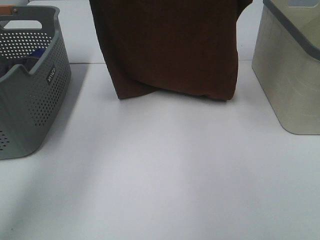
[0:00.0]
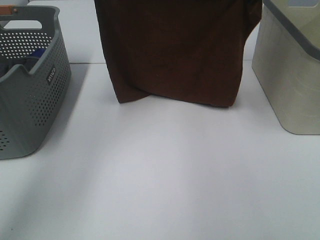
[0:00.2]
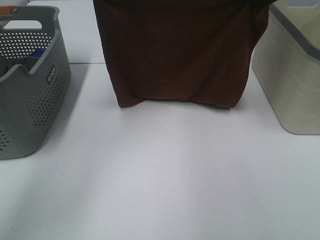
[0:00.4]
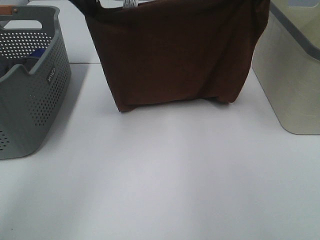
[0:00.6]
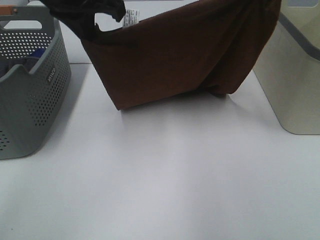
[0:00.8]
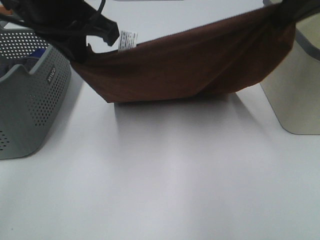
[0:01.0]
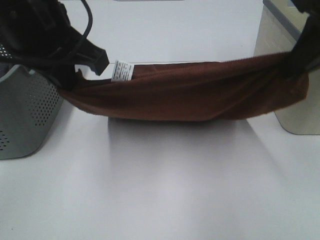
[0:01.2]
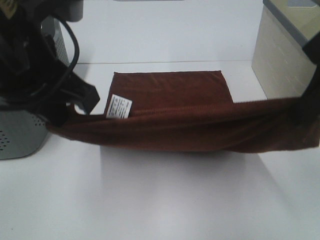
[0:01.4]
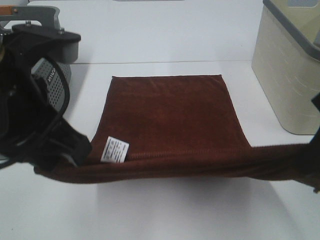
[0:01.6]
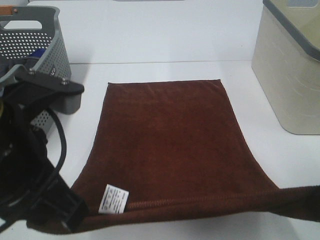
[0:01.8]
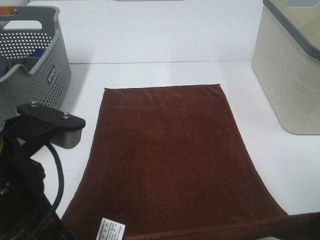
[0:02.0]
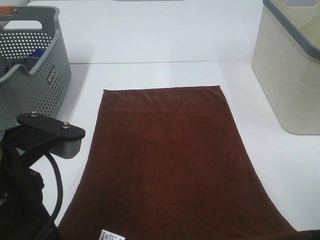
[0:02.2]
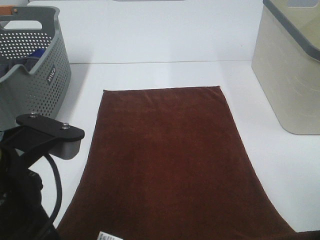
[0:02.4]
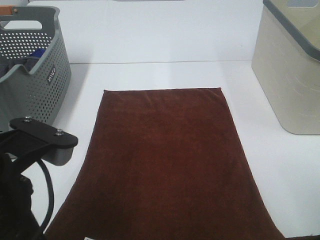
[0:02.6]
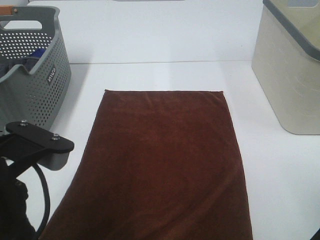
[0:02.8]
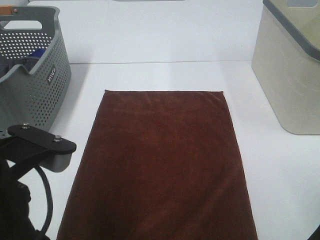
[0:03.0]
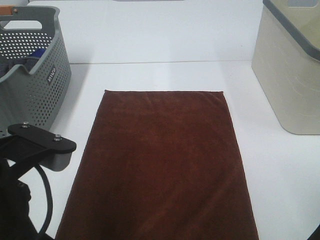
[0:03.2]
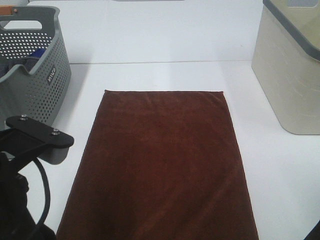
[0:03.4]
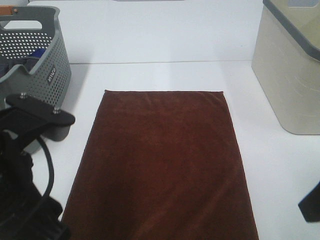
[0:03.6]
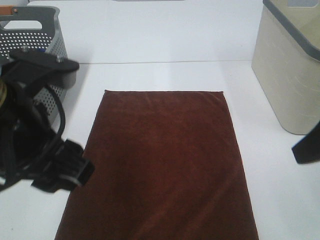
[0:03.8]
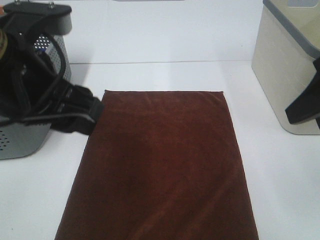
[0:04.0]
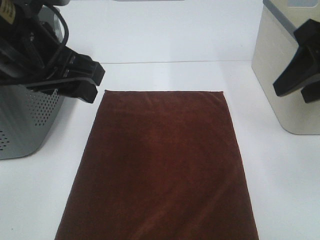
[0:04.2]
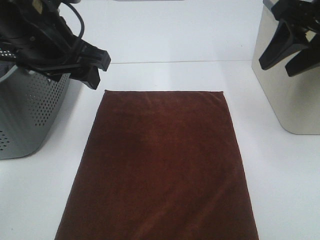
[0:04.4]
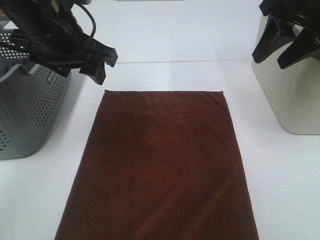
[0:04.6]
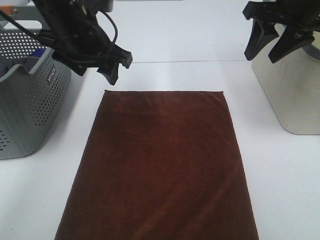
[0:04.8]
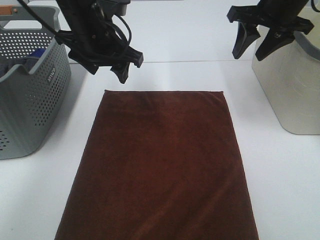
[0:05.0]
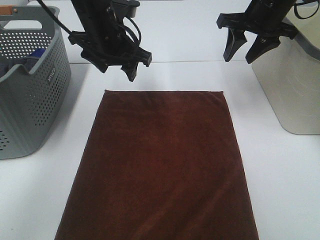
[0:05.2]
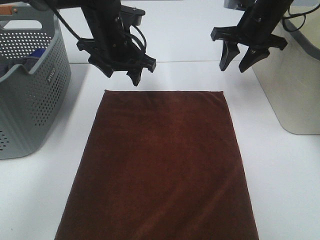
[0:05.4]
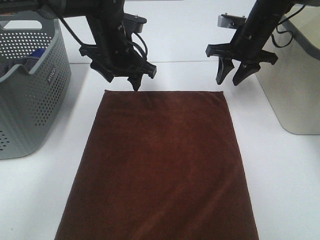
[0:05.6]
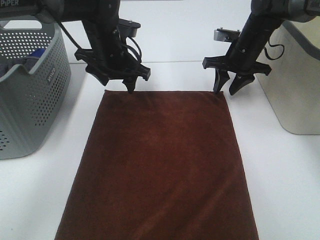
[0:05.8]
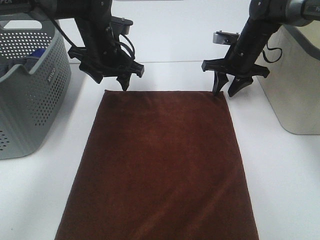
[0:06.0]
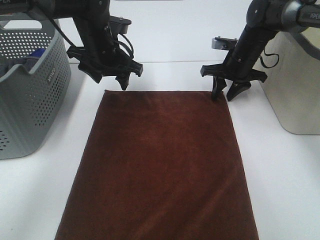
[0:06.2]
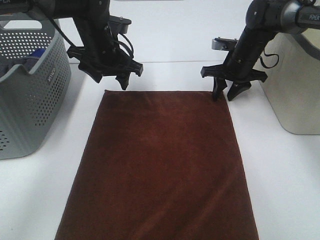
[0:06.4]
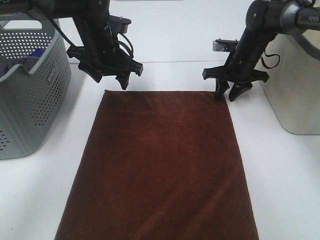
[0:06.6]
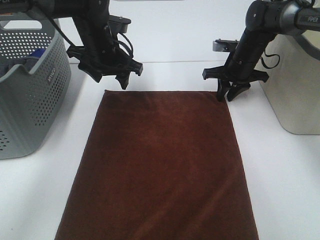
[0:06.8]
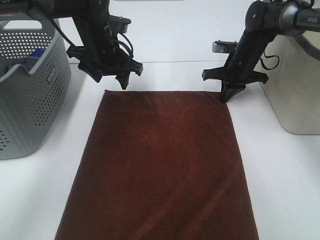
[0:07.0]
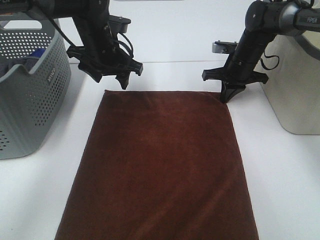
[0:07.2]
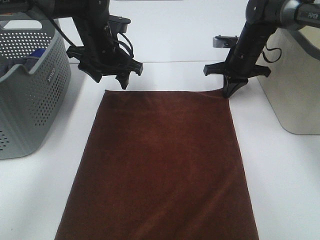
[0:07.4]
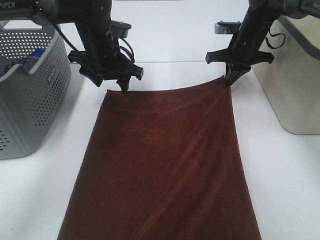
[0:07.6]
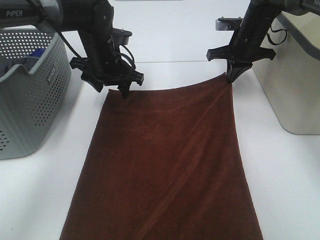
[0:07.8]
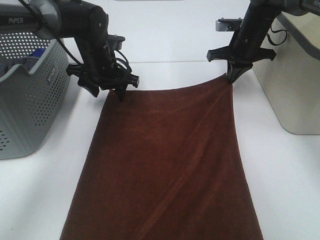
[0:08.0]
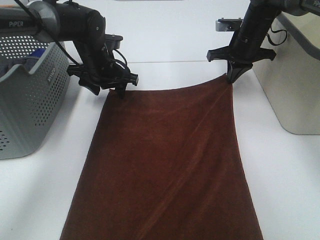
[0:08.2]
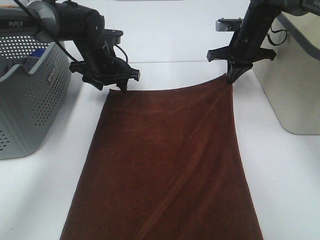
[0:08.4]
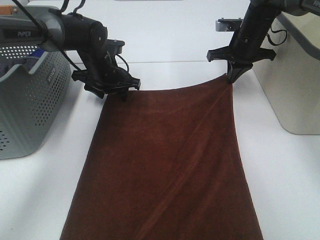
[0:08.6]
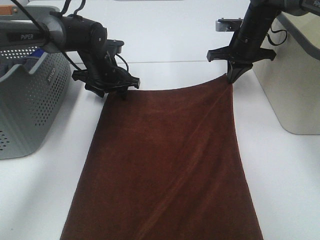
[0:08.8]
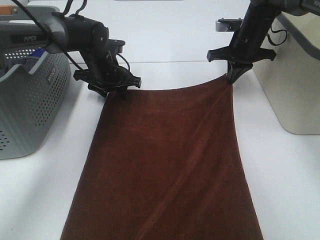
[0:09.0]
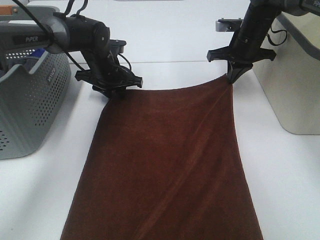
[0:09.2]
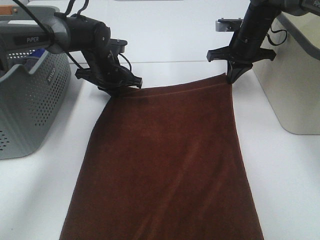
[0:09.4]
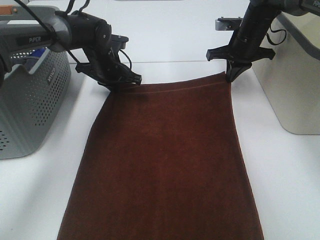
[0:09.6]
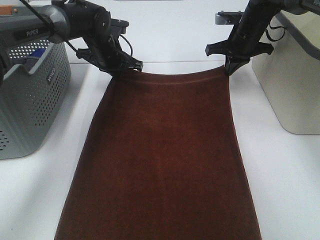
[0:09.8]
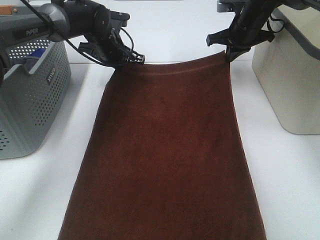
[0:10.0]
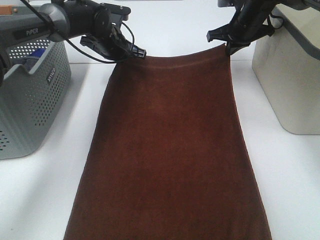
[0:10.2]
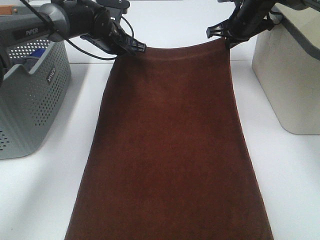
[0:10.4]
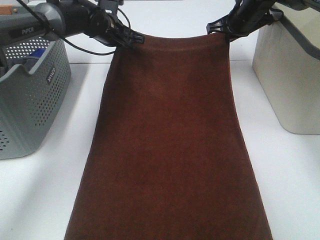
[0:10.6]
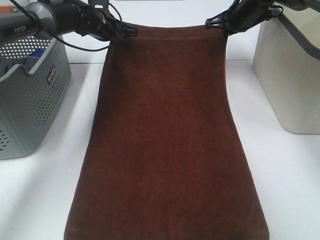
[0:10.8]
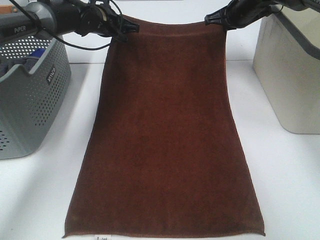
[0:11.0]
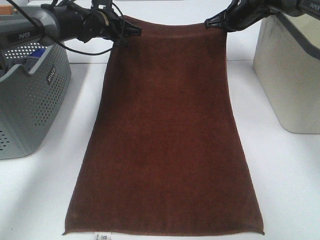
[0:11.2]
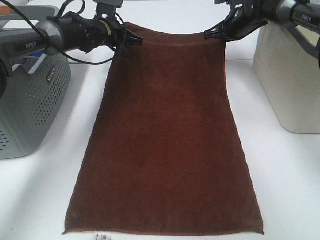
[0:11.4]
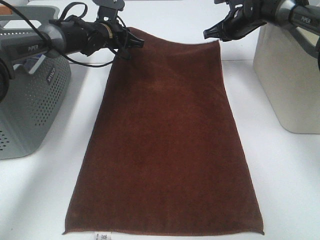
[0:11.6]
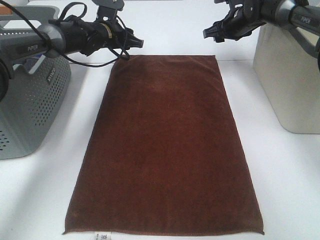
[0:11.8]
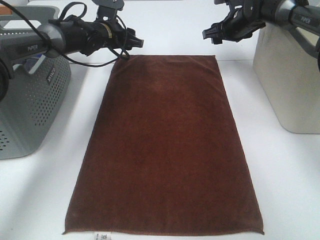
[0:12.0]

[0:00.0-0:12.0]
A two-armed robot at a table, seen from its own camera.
Task of the whole recording: Remove the towel and place it.
Step, 0:00.0 to 0:05.8: Left hand:adjust the brown towel.
Step, 0:00.0 to 0:05.8: Right hand:adjust the brown towel.
0:00.0 to 0:01.6: The two grippers go some 25 cm backward.
0:01.6 to 0:03.0: The two grippers go some 5 cm backward. The left gripper opens up. The right gripper opens its fingers.
0:03.0 to 0:04.4: The left gripper is displaced forward by roughly 20 cm. The right gripper moves forward and upward, approximately 20 cm.
0:04.4 to 0:06.0: Both grippers travel together forward and downward, about 25 cm.
0:06.0 to 0:07.6: The right gripper closes.
0:07.6 to 0:09.0: The left gripper heads downward, covering some 5 cm.
0:09.0 to 0:10.4: The right gripper changes place by about 5 cm; the left gripper is displaced upward by some 5 cm, and closes.
0:10.4 to 0:12.0: The left gripper opens up, while the right gripper opens up.

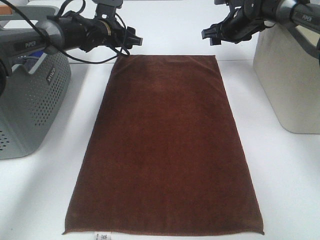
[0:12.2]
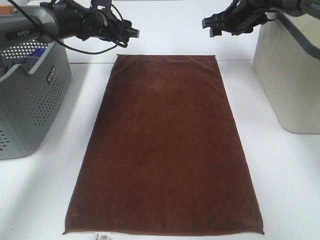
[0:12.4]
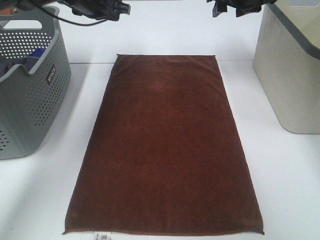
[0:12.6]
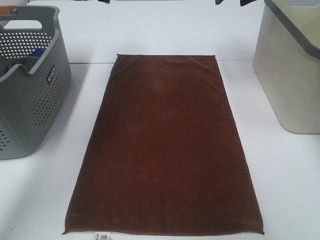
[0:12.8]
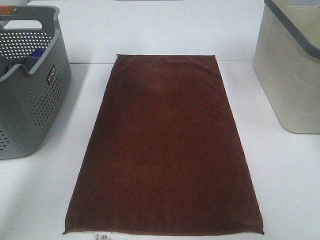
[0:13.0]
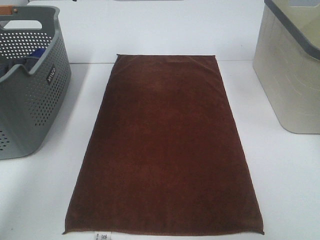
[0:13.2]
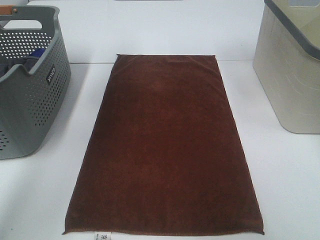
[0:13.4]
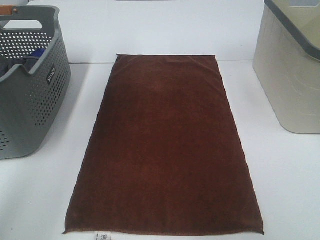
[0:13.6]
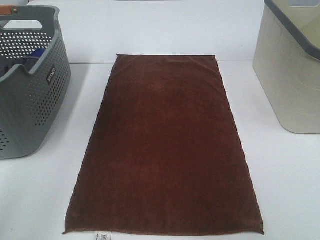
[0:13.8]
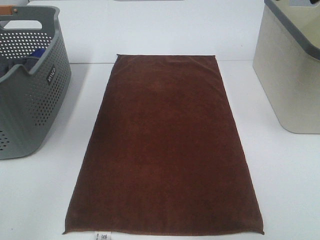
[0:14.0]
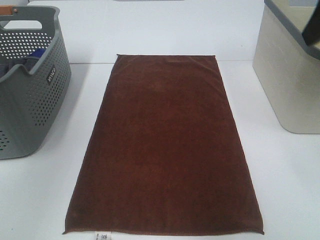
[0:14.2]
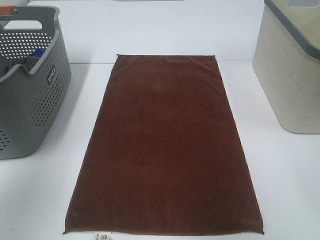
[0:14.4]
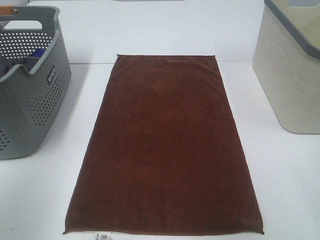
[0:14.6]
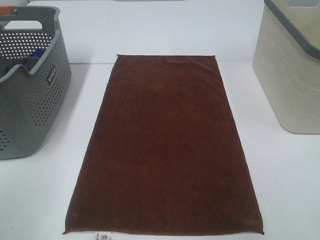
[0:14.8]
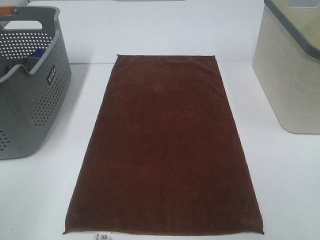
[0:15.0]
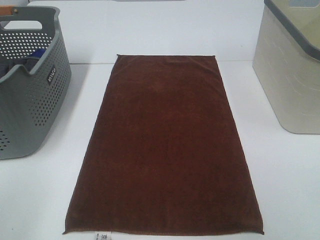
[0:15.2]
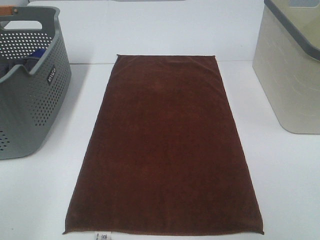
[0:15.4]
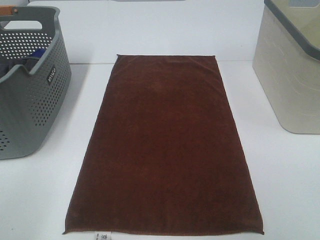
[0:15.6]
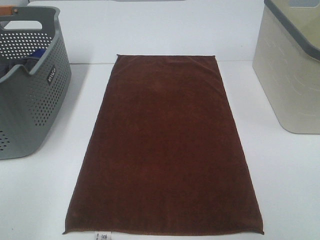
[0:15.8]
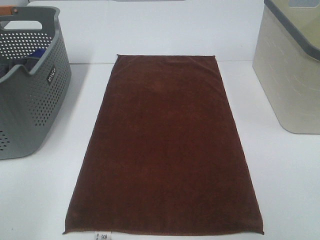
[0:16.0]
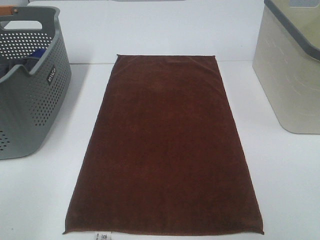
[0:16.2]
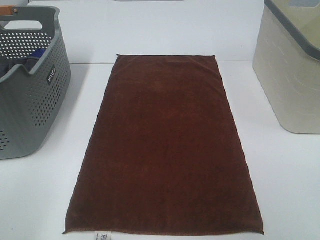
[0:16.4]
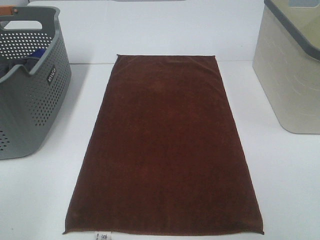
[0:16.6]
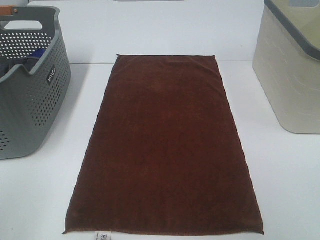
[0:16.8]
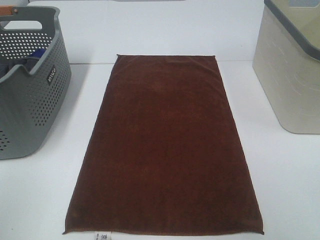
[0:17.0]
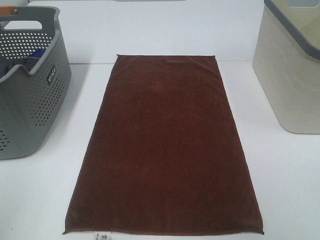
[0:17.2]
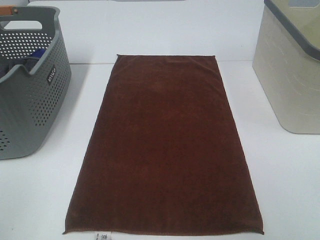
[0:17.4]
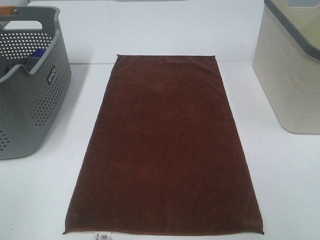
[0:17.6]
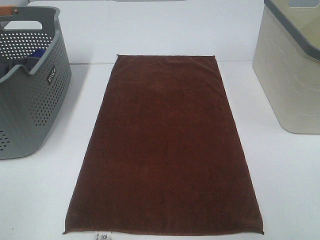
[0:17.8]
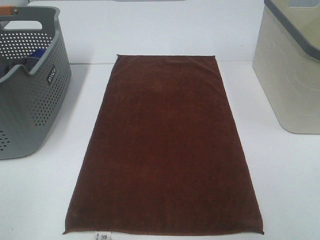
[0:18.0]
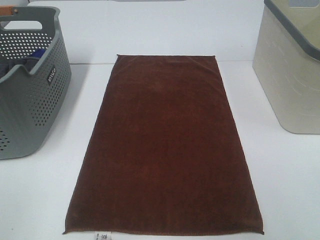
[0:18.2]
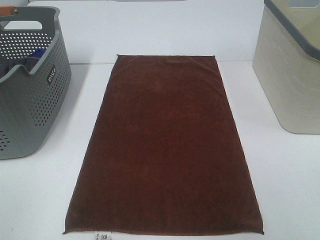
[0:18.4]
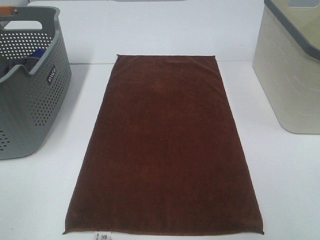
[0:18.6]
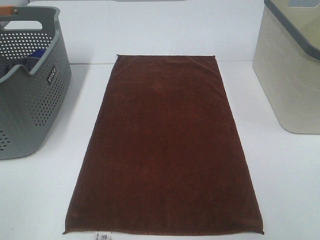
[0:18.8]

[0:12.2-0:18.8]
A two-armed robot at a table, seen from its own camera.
Task of the whole recording: Remove the towel and place it.
0:12.2 to 0:13.8: Both grippers move upward and backward, approximately 30 cm.
0:13.8 to 0:15.4: The left gripper shifts about 35 cm backward and downward.

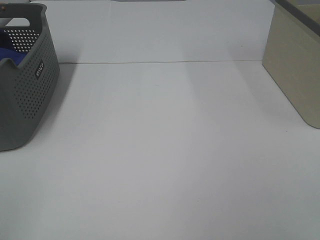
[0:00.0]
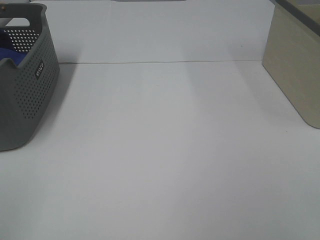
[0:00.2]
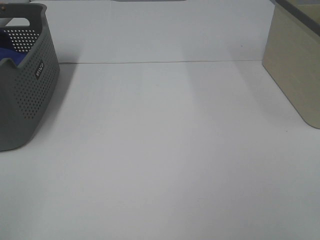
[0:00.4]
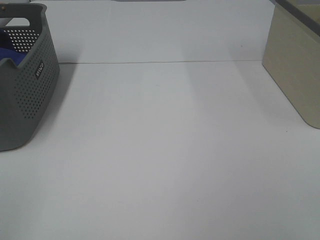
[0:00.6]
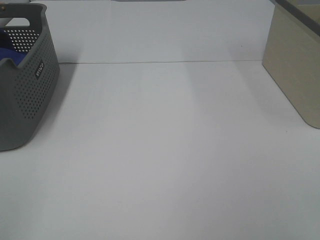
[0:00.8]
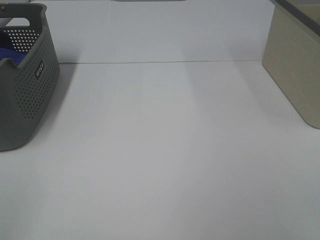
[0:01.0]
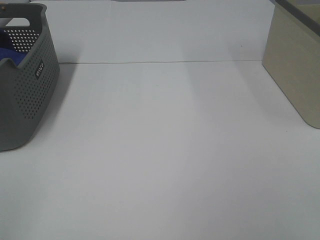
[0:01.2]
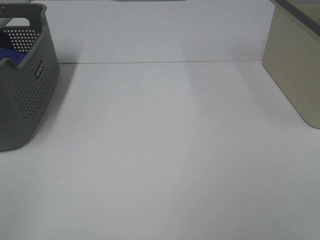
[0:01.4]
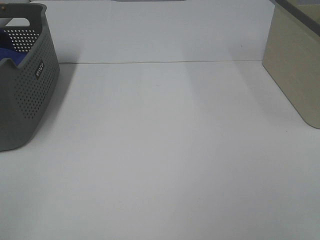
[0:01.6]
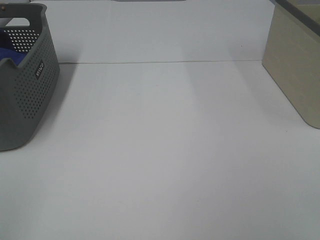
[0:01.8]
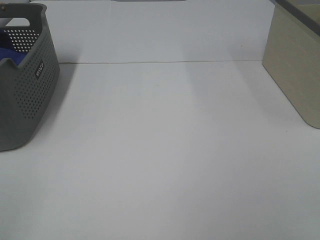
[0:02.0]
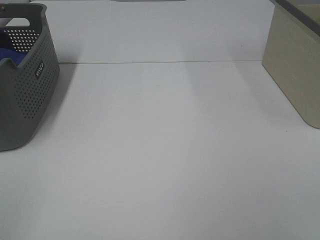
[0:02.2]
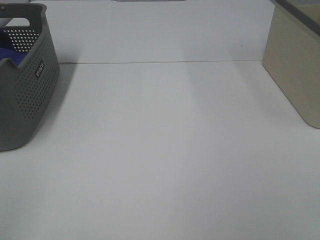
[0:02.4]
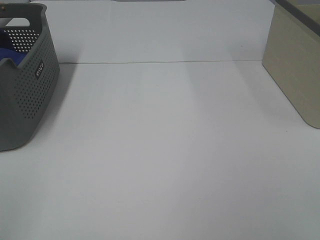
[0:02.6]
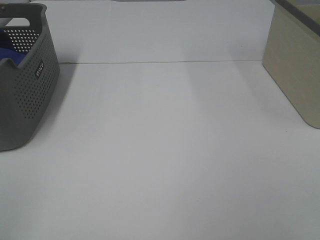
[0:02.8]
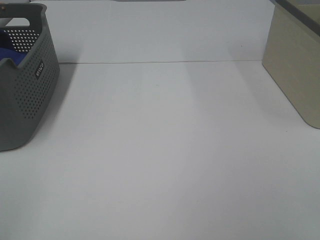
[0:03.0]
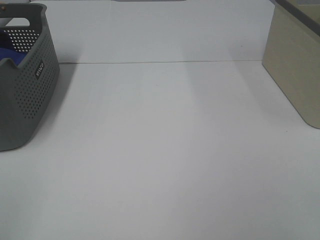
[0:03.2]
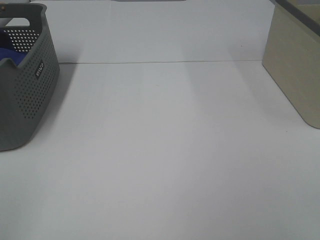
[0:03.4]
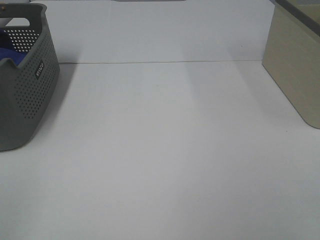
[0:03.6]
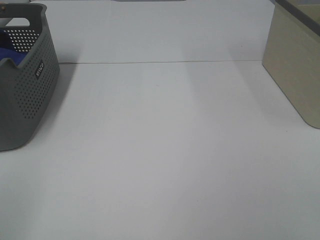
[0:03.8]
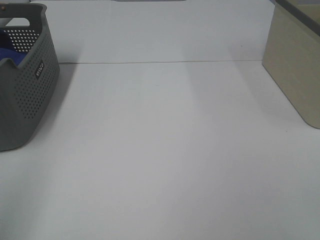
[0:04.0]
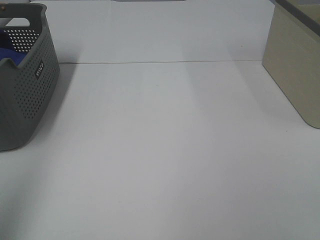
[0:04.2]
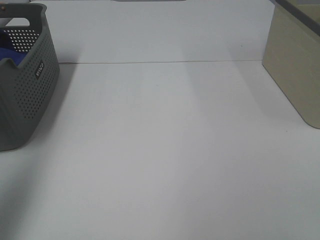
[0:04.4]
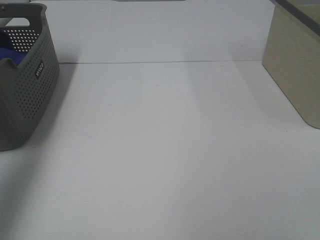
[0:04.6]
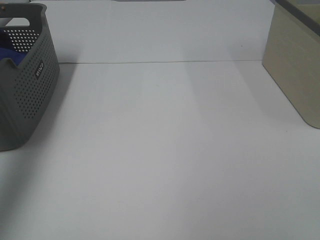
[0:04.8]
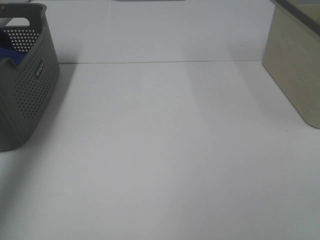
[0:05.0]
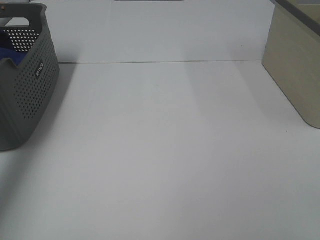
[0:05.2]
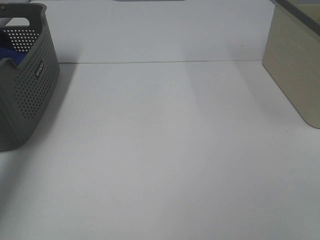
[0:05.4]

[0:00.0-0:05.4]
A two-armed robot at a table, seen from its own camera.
Task of the whole recording: Remove the towel and place it.
0:00.0 to 0:02.8: Both grippers stay put.
0:04.0 to 0:05.4: The left gripper travels forward by about 40 cm.
